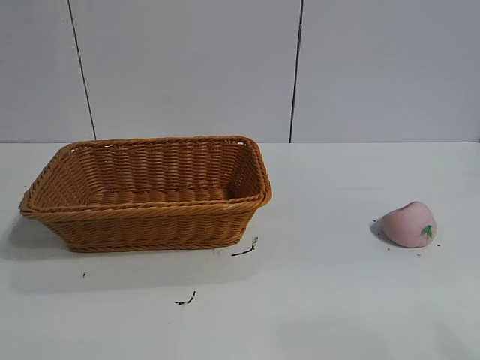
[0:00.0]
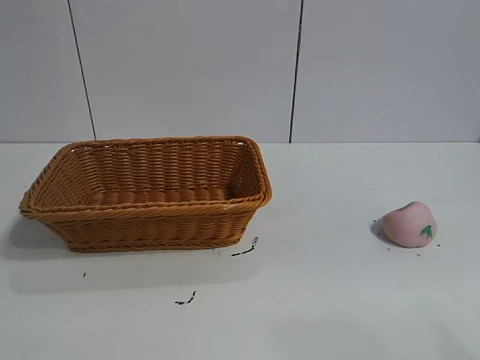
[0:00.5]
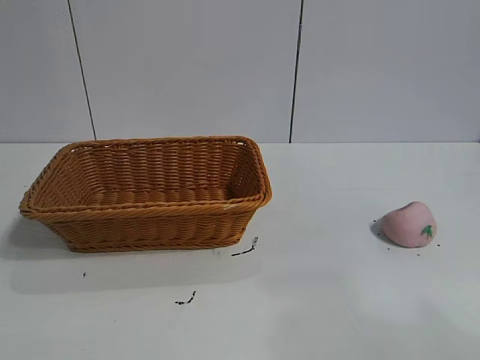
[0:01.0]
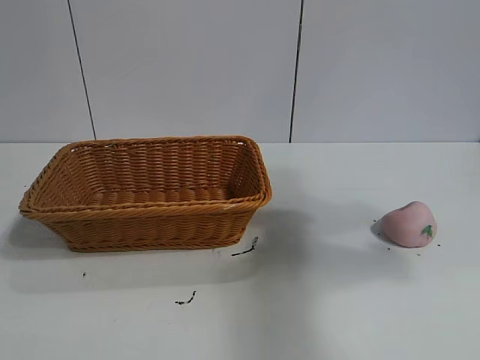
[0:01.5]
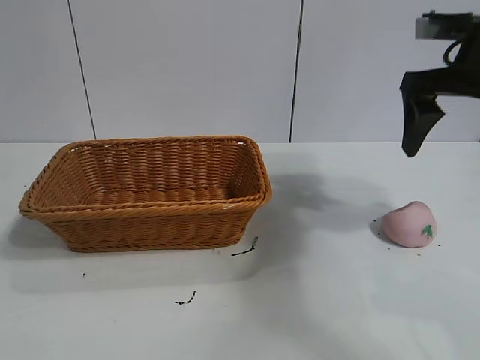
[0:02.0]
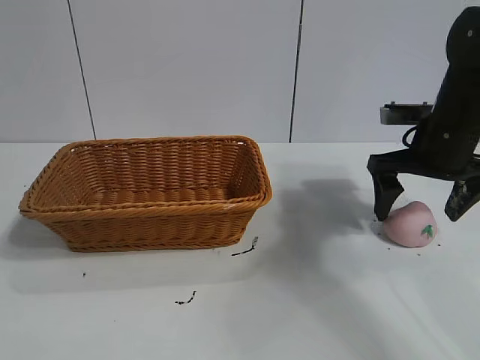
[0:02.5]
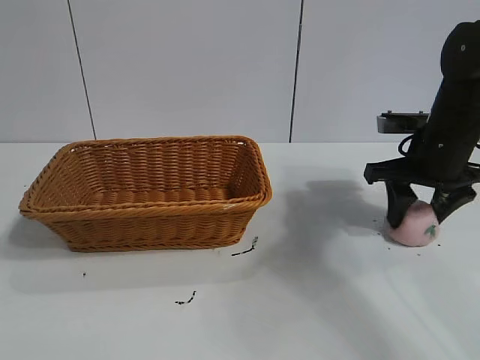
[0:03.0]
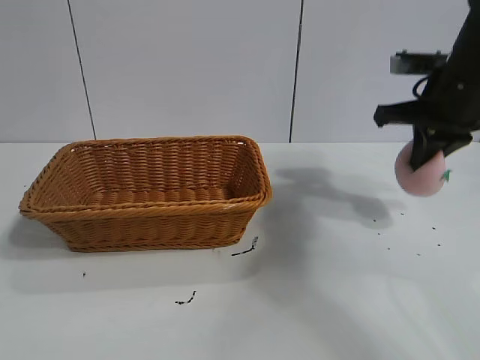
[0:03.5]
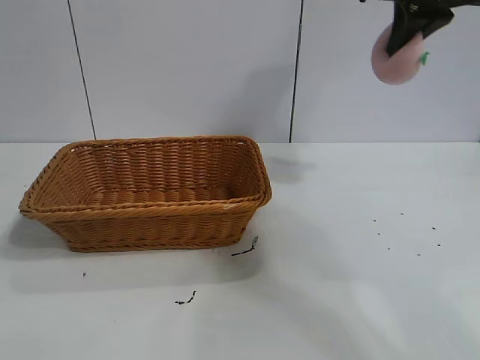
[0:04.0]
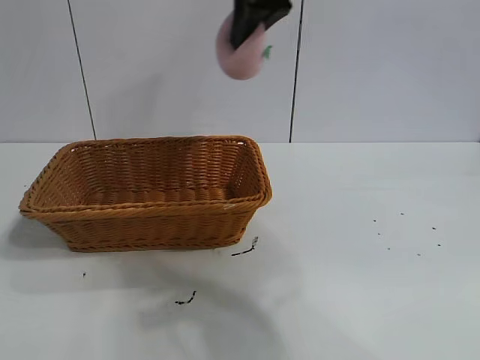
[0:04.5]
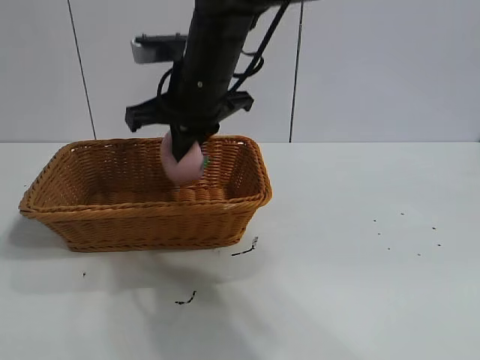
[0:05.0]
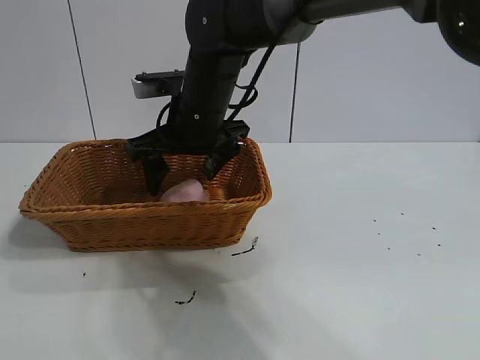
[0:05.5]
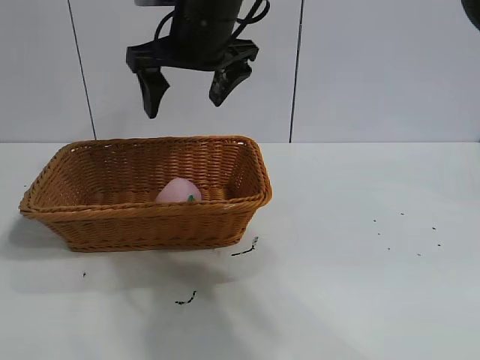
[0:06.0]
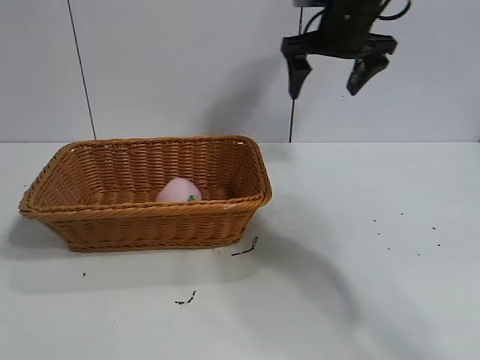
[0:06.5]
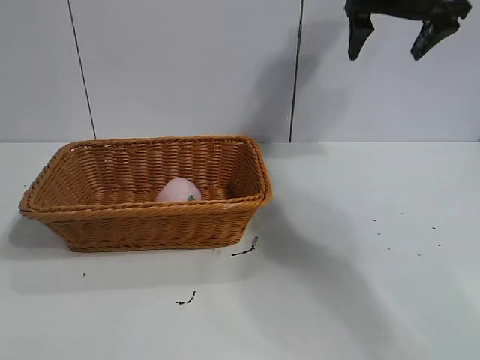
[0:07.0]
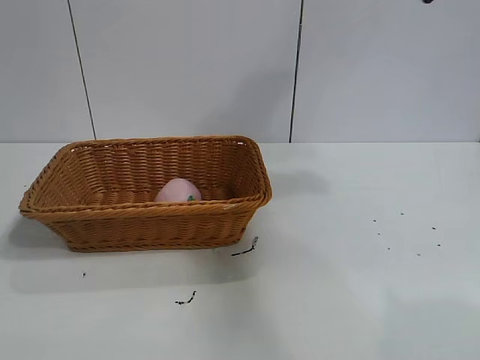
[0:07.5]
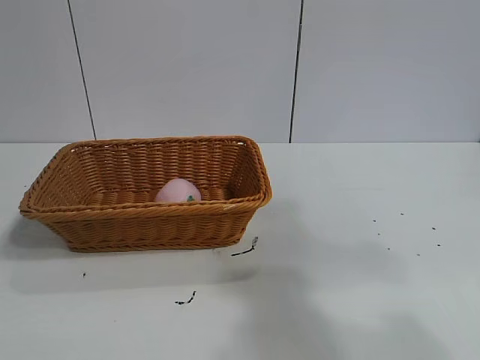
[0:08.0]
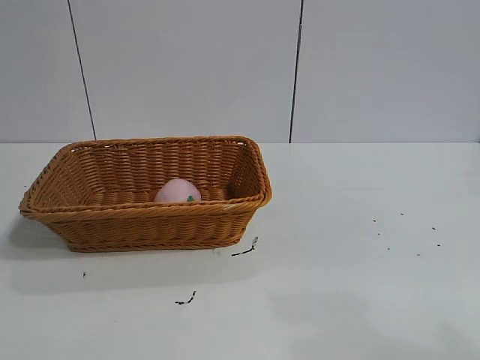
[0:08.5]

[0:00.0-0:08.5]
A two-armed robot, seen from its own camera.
Task of the whole recording: pick up the peach and put it into the basket.
Step, 0:00.0 to 0:03.0: Grasp the peach with right gripper.
Step, 0:03.5 to 0:05.0: Place the peach in the basket with right gripper.

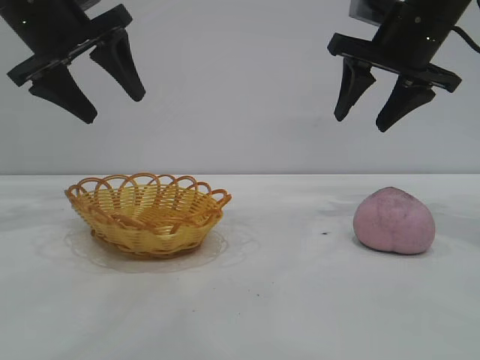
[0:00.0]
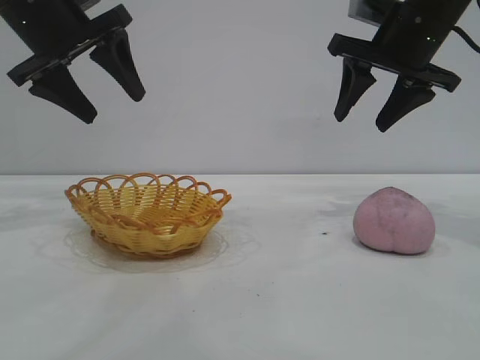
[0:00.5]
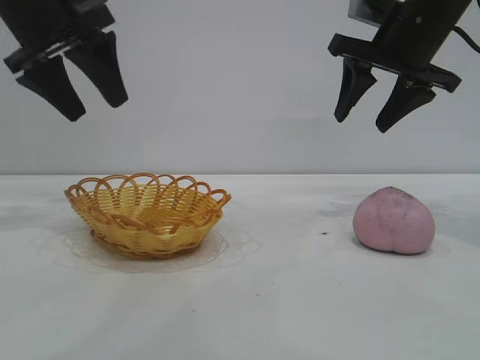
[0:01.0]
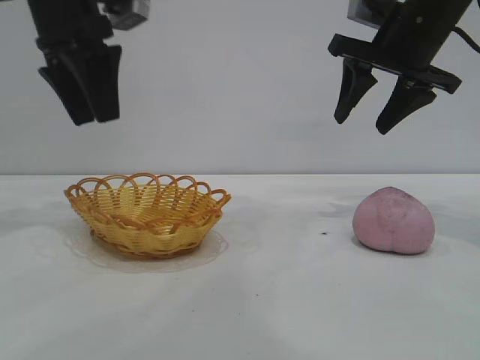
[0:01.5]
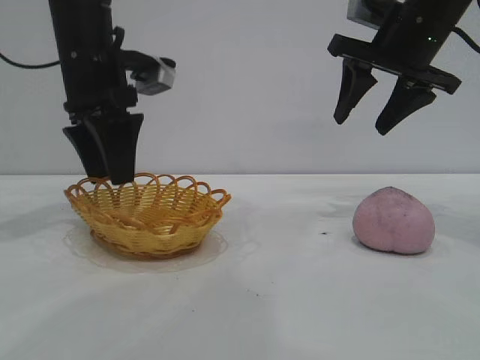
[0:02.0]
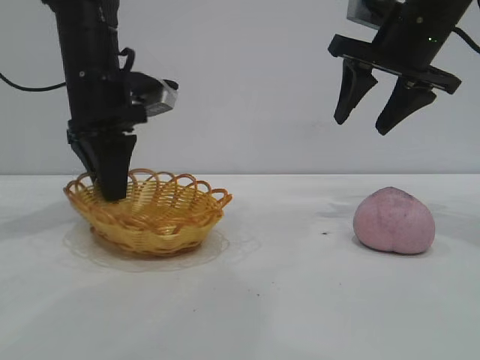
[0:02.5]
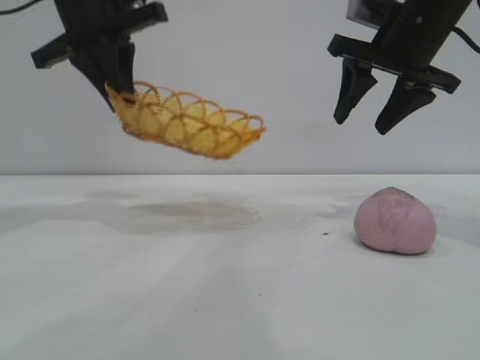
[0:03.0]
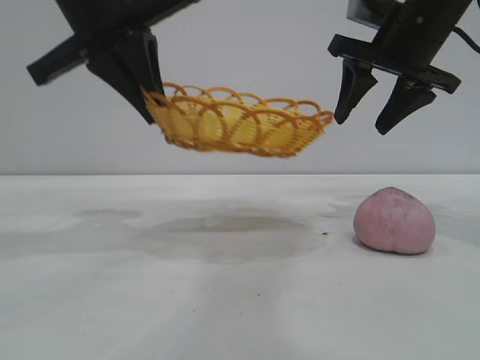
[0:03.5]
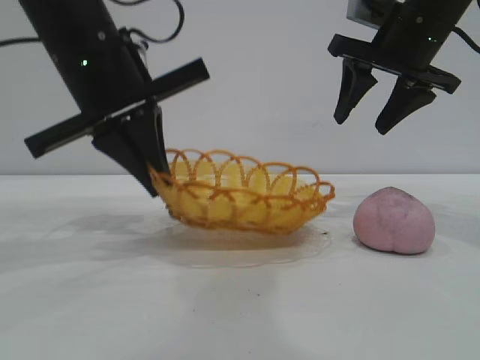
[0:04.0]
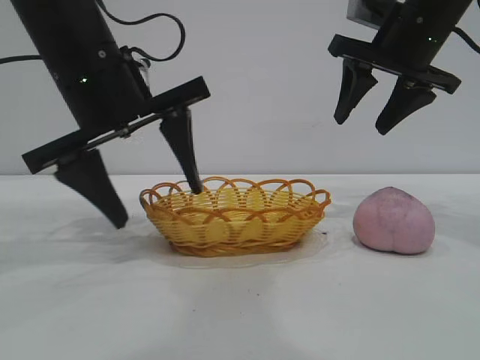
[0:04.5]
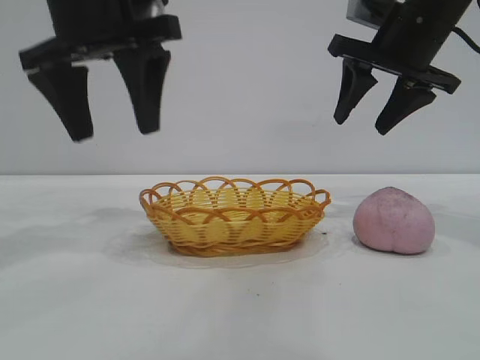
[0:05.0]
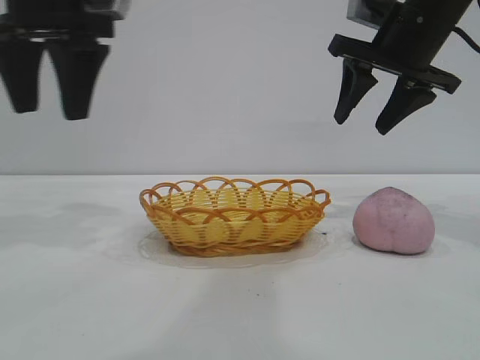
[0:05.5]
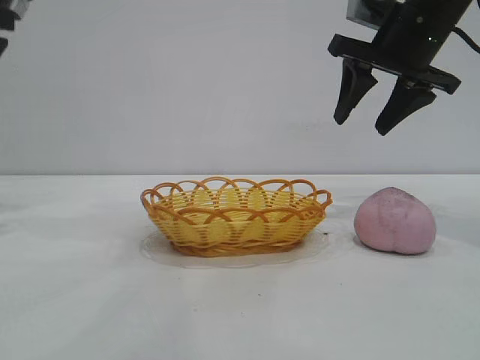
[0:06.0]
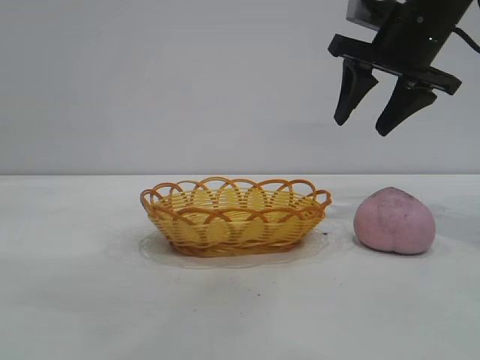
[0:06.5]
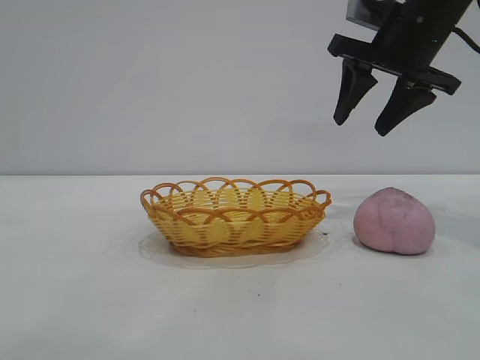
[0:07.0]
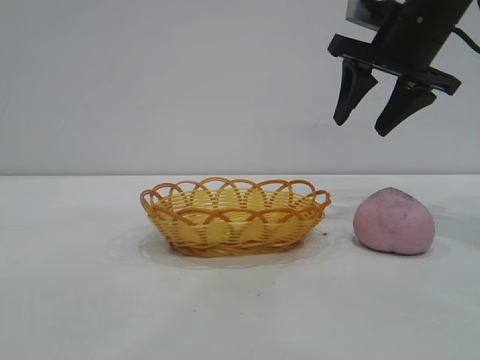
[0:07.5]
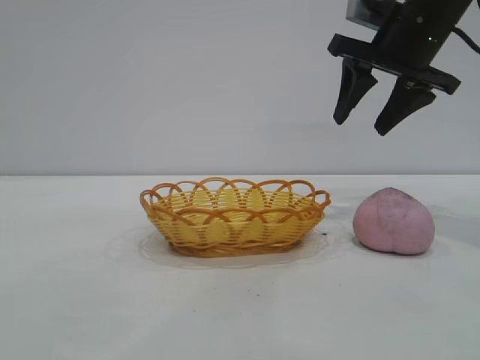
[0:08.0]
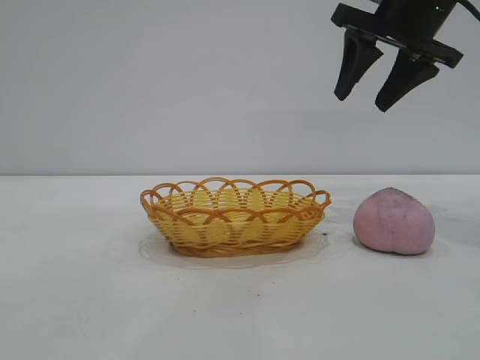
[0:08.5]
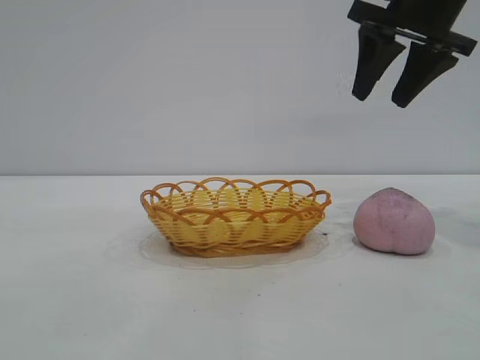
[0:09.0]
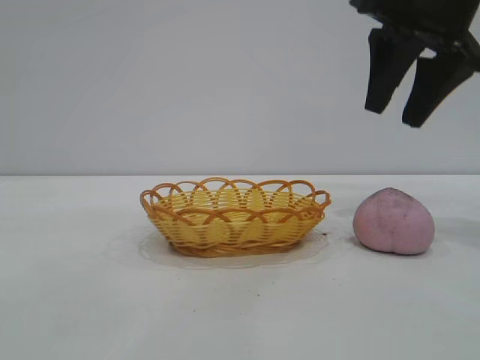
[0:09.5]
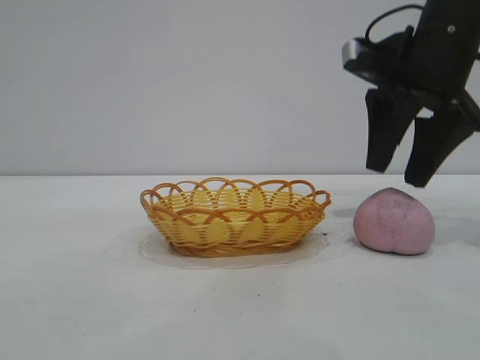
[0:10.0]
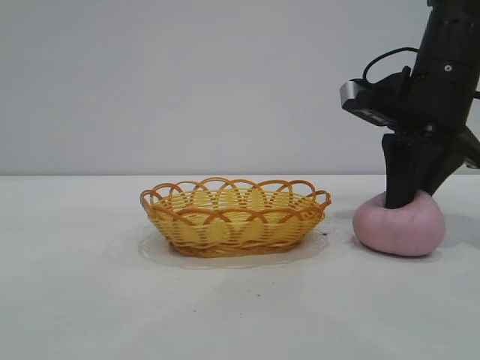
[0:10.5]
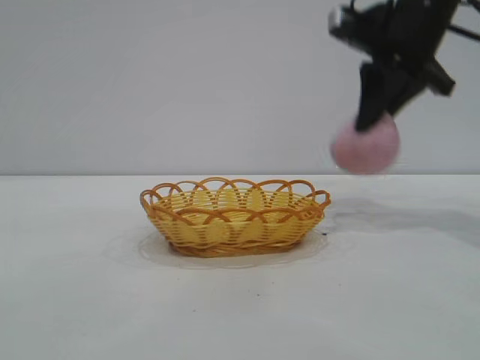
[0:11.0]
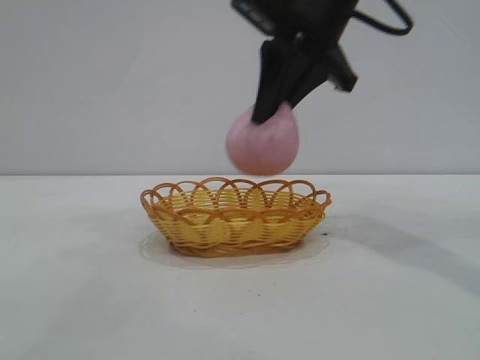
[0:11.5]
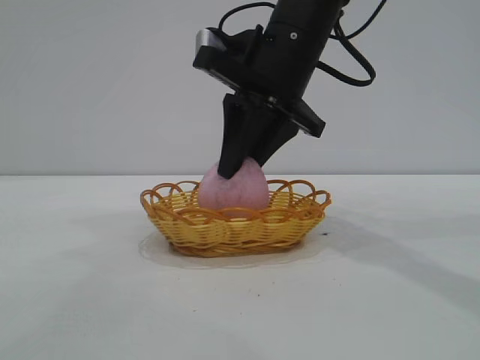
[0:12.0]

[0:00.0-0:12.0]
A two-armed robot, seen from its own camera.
Task of the whole recording: pick up the peach and put it into the basket.
Step, 0:00.0 to 0:04.5: Move the basket to the center of view.
Step, 0:05.0 to 0:10.5: Pick up the peach.
